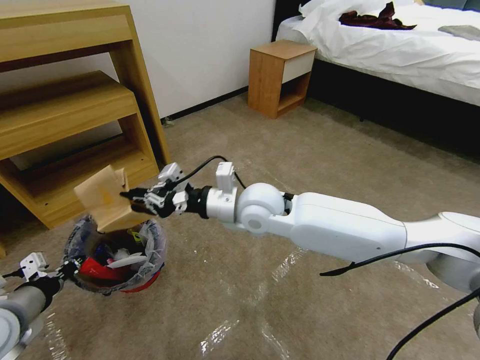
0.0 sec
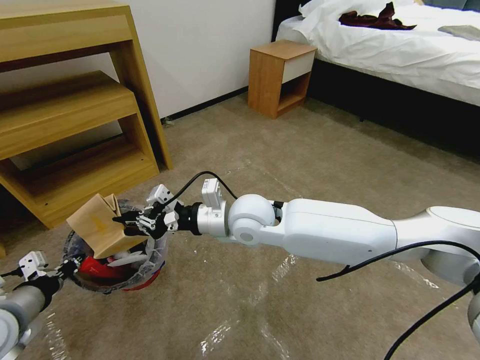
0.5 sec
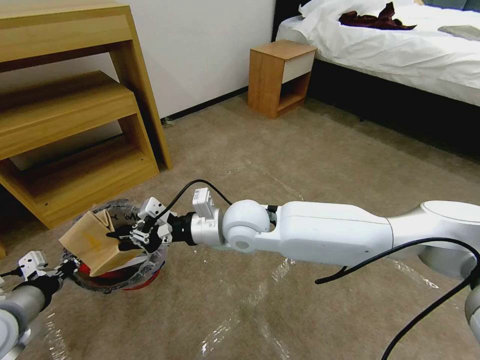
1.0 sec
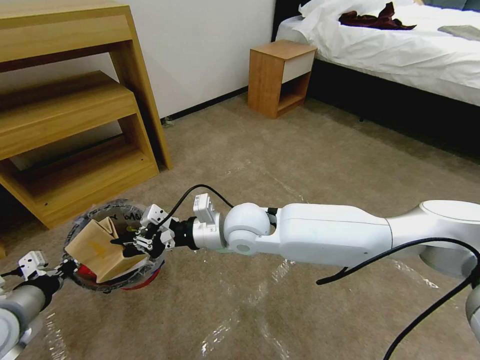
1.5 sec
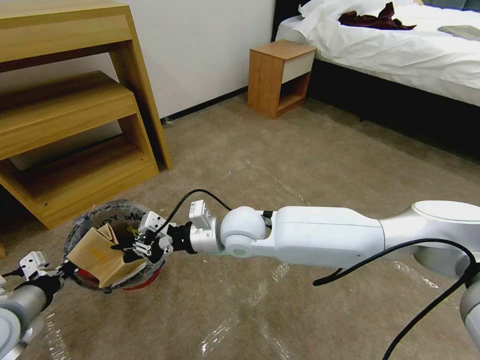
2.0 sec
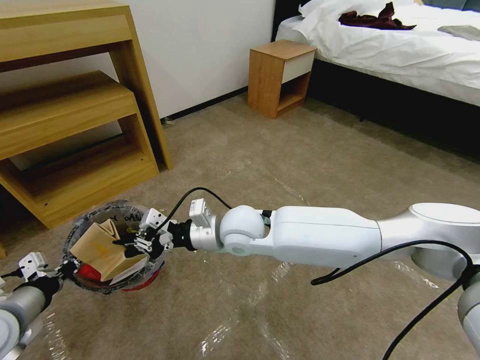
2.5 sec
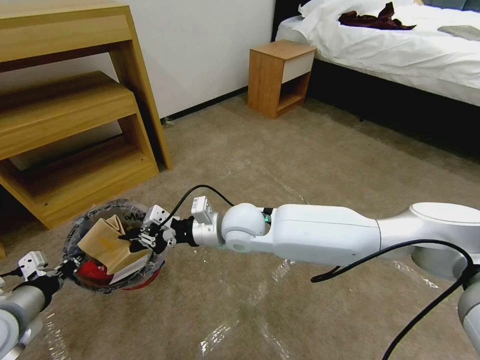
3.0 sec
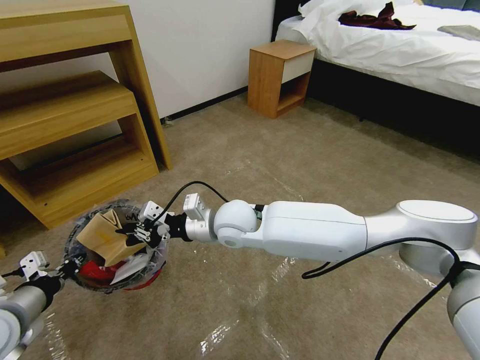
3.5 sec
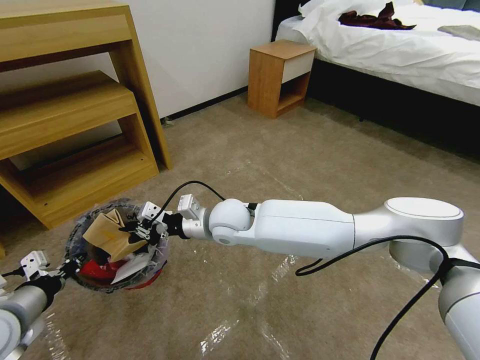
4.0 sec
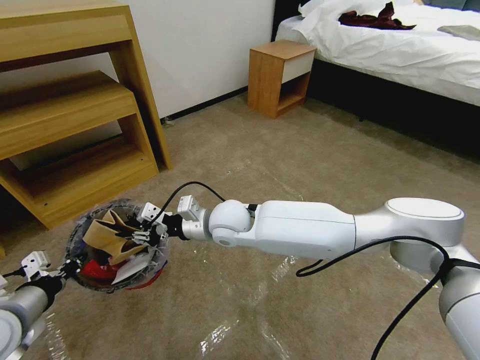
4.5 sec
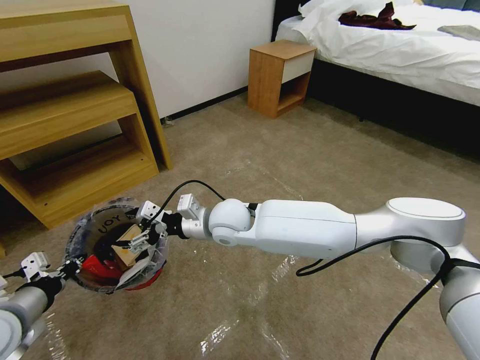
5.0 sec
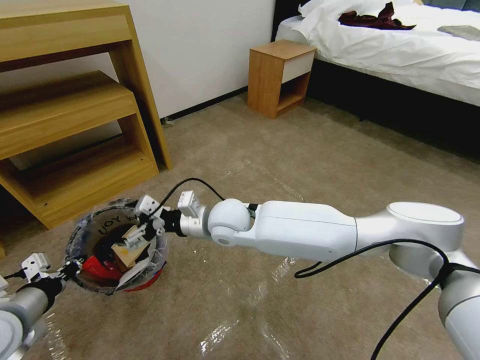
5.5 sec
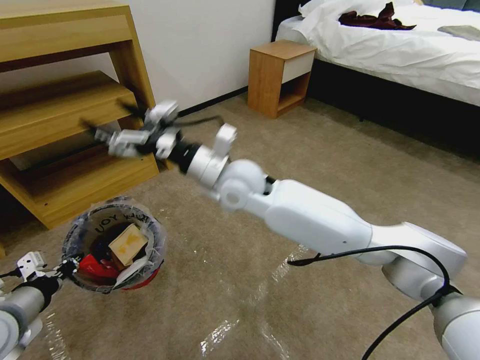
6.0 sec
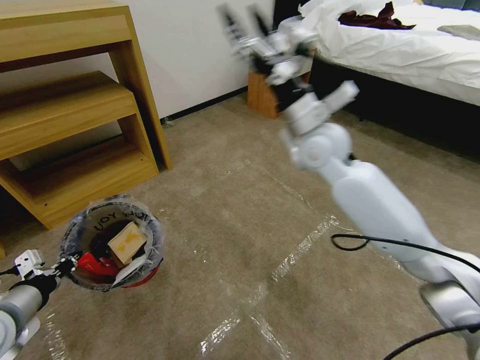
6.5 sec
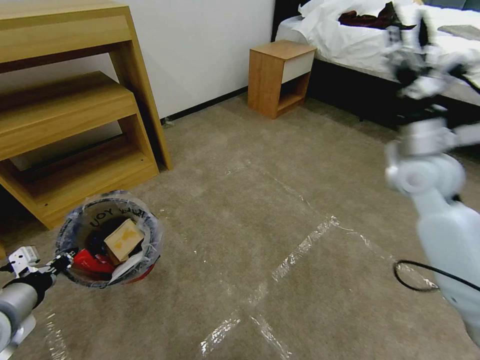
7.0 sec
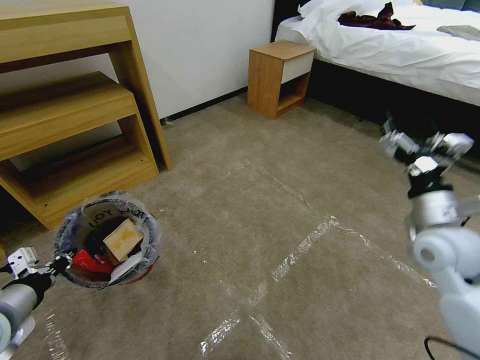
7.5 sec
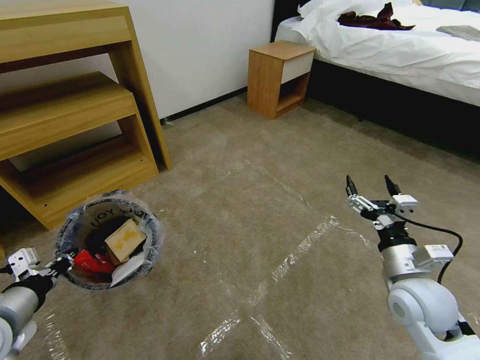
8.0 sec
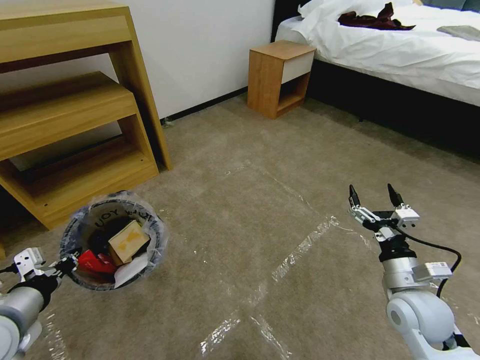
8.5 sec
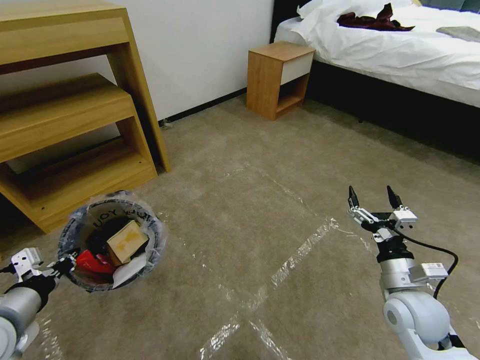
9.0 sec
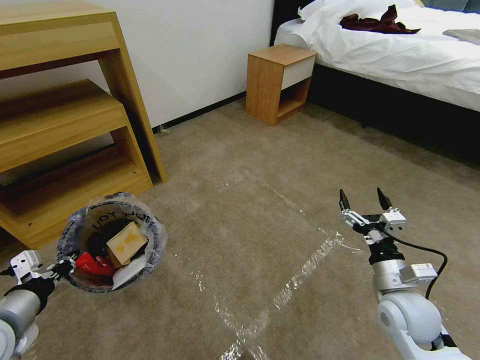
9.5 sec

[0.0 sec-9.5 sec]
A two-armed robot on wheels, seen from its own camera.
Task of the whole recording: Pick up the trash bin and place the garbage on the floor into it.
0.0 sec to 2.0 sec: The right gripper ends up roughly 5 cm from where it was.
2.0 sec to 4.0 sec: The right gripper shifts by about 5 cm.
4.0 sec to 5.5 sec: The right gripper opens.
5.5 sec to 7.5 sec: The right gripper heads to the right, covering about 40 cm.
7.5 sec to 9.5 sec: The right gripper shifts roughly 15 cm downward and backward.
